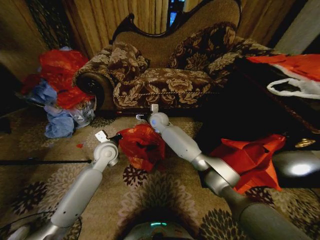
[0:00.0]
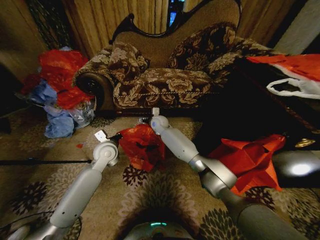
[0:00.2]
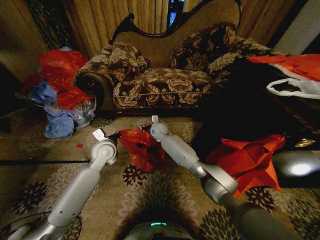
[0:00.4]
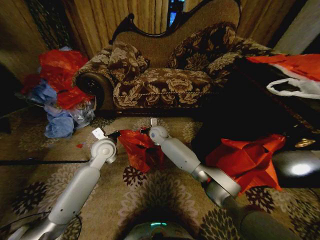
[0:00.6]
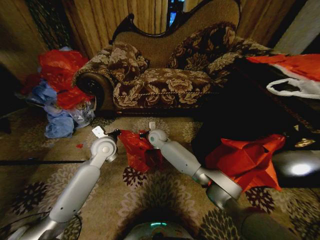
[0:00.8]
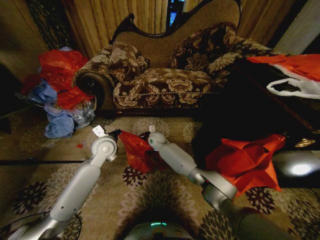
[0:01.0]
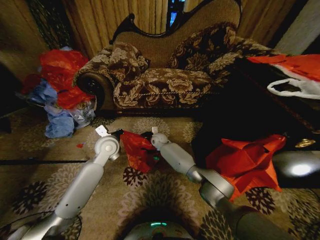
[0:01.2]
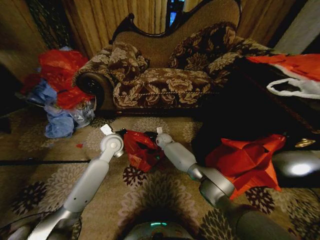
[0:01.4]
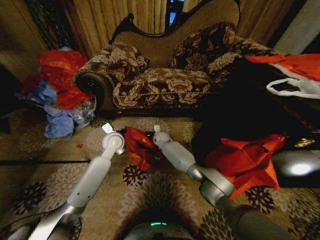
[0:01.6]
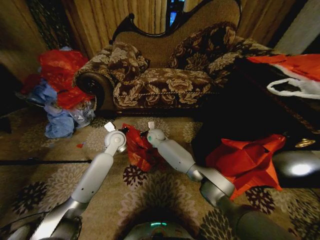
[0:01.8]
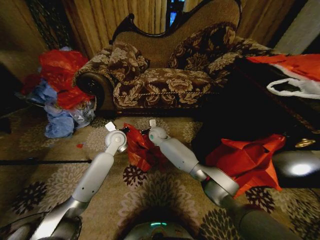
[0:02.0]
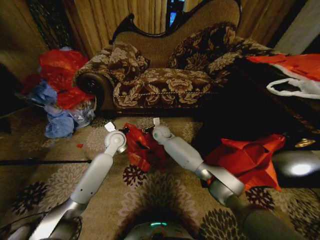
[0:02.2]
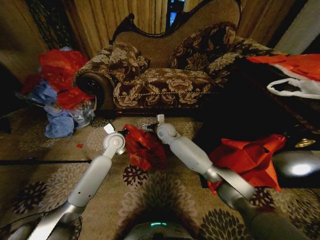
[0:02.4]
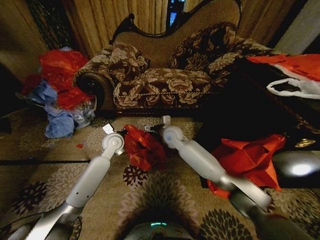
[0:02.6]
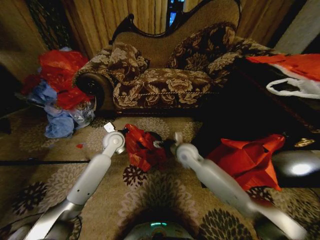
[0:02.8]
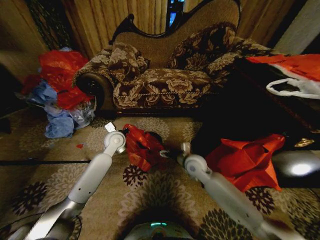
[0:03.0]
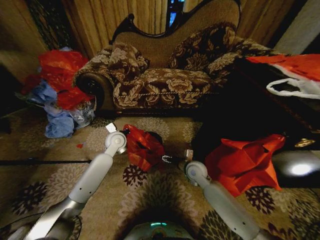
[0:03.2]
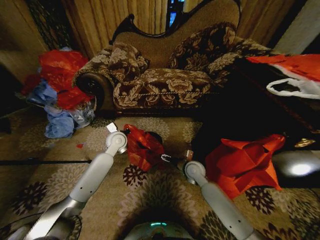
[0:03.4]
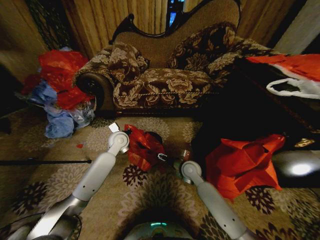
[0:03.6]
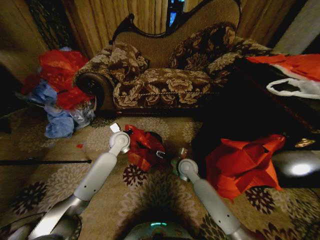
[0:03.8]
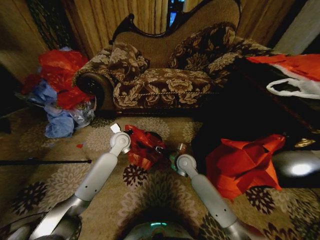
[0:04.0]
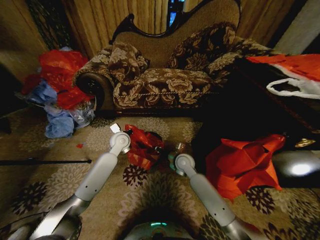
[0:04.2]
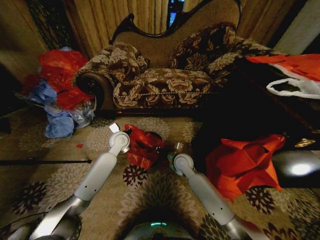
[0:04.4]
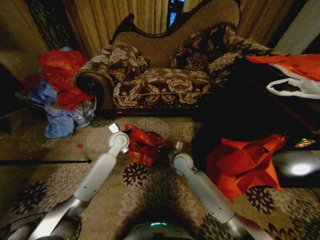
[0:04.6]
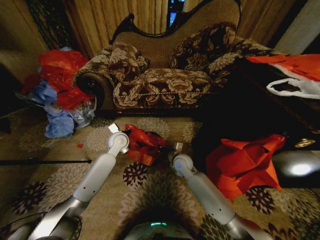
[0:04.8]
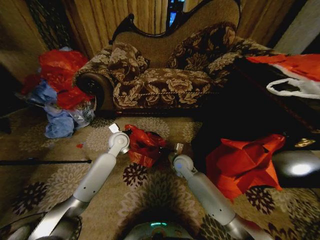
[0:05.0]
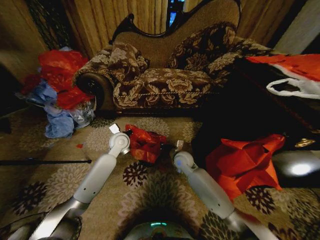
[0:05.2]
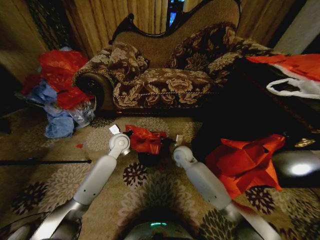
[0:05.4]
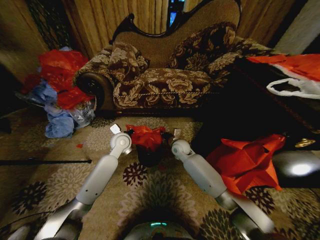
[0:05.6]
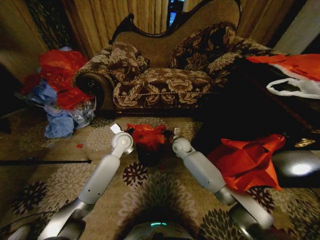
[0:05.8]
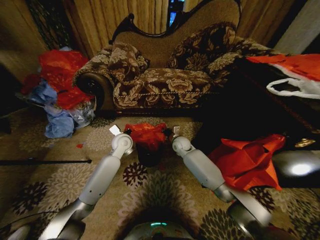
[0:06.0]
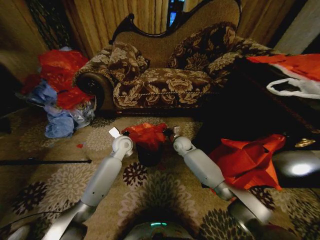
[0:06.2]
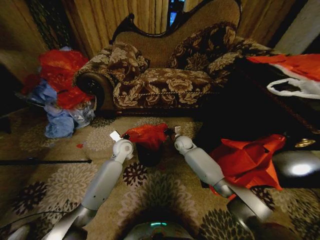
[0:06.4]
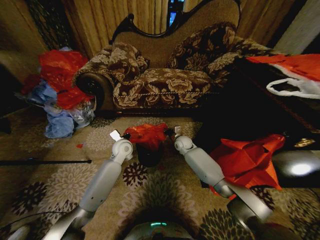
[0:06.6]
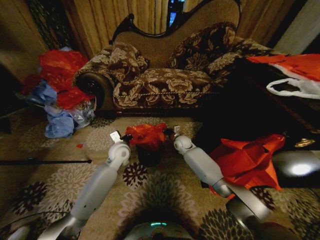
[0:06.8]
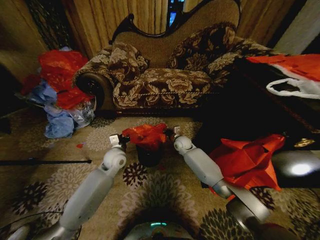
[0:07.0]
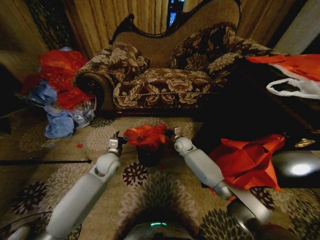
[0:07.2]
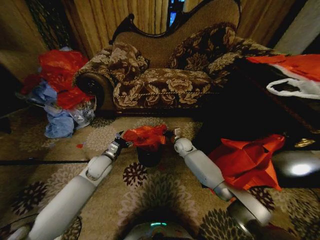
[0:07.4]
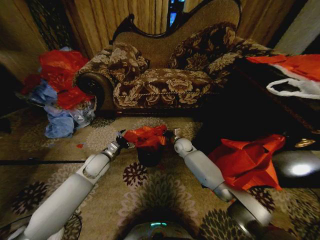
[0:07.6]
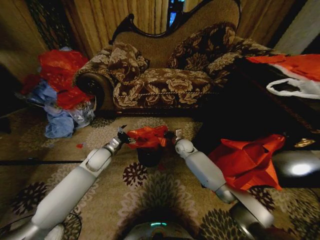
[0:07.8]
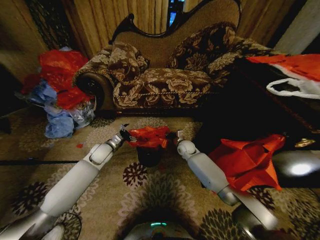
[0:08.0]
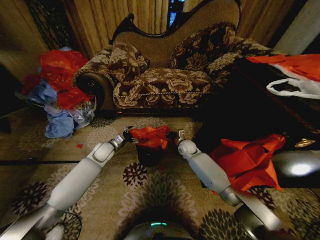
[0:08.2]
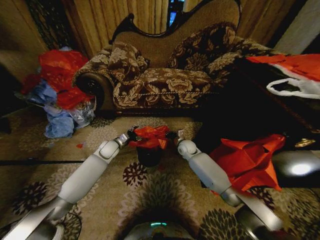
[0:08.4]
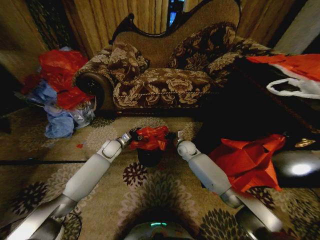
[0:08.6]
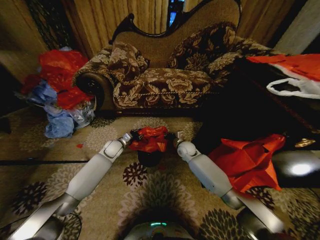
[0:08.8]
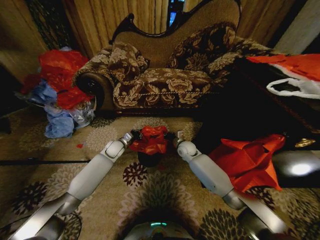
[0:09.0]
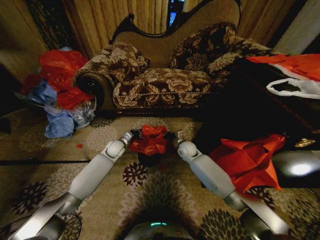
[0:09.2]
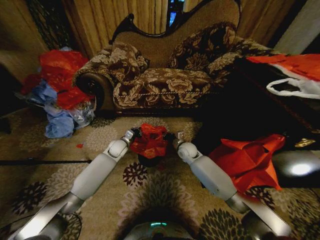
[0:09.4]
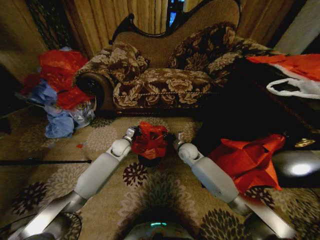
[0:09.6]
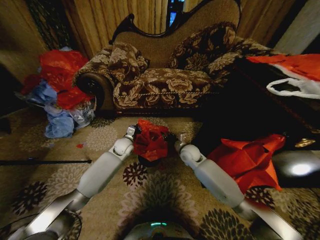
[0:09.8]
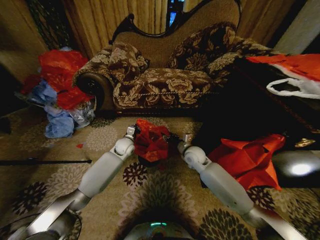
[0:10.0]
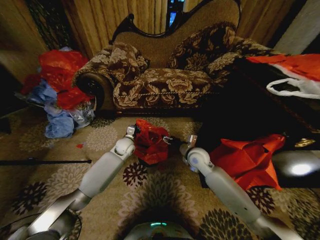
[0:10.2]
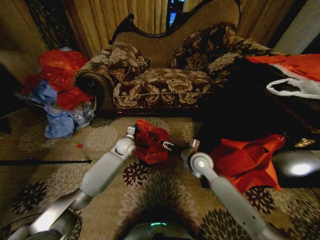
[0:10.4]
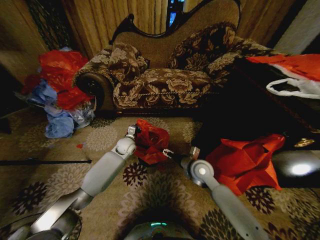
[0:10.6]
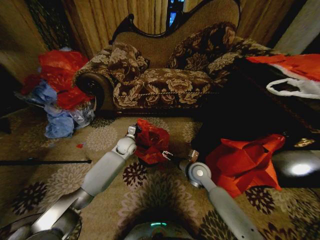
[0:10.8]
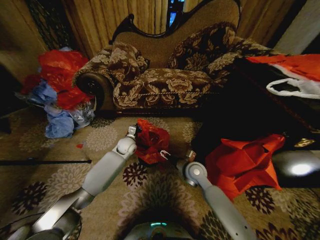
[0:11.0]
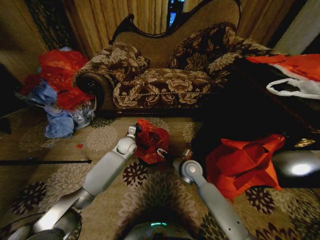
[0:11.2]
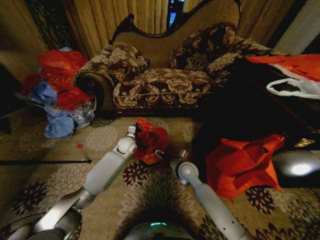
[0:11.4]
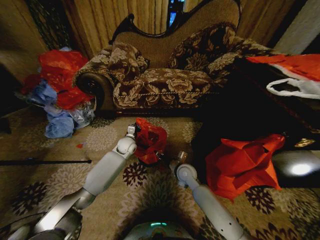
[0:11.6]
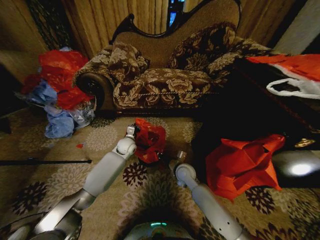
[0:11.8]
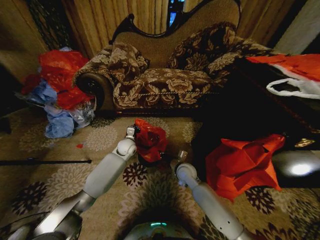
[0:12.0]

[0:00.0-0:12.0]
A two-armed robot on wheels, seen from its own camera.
Task of the whole recording: Place a garbage bag over the trash bin.
0:00.0 to 0:01.6: The right gripper heads downward, covering some 15 cm, and closes its fingers. The left gripper travels forward by some 5 cm.
0:01.6 to 0:03.0: The right gripper moves backward and to the right, about 25 cm, and opens its fingers.
0:03.0 to 0:04.4: The right gripper moves roughly 5 cm, and closes.
0:04.4 to 0:06.0: The right gripper heads forward, covering some 10 cm.
0:06.0 to 0:07.6: The left gripper is displaced to the left, backward and downward by roughly 15 cm, and opens its fingers.
0:07.6 to 0:09.0: The left gripper shifts roughly 10 cm forward, and closes up.
0:09.0 to 0:10.4: The left gripper shifts some 5 cm to the right; the right gripper goes roughly 15 cm backward and upward, and opens its fingers.
0:10.4 to 0:12.0: The right gripper moves downward, approximately 10 cm, and closes its fingers.

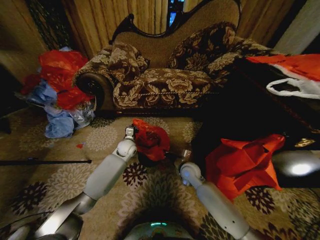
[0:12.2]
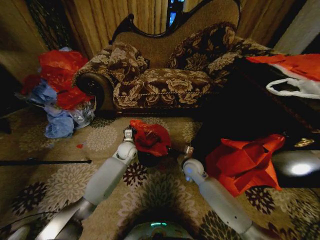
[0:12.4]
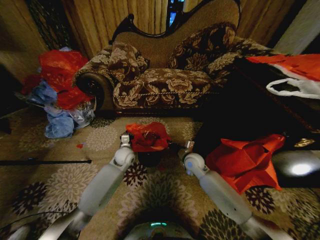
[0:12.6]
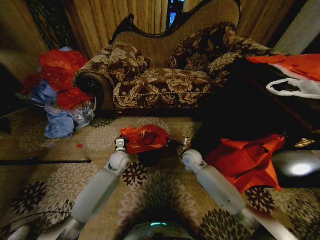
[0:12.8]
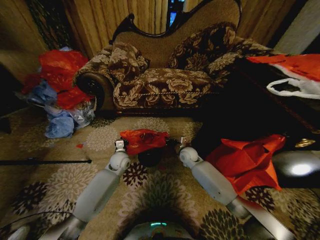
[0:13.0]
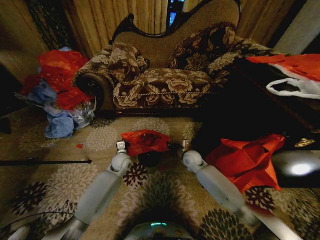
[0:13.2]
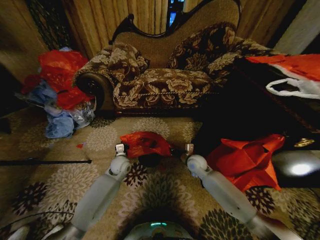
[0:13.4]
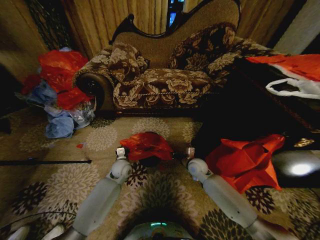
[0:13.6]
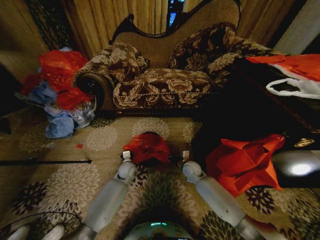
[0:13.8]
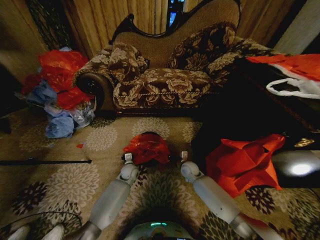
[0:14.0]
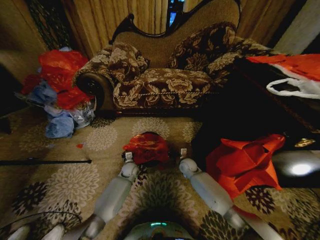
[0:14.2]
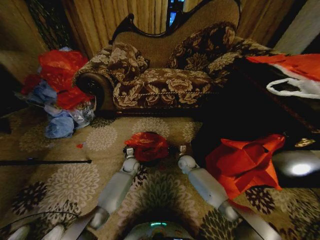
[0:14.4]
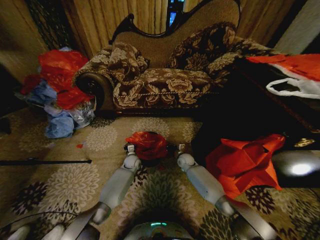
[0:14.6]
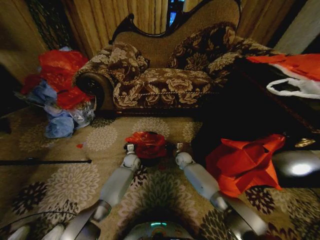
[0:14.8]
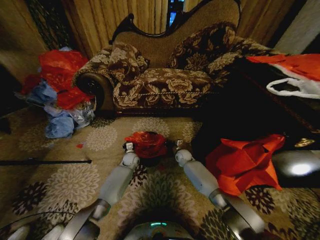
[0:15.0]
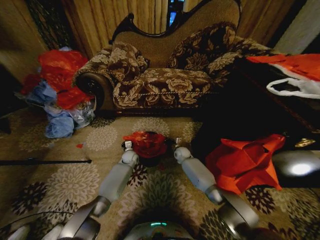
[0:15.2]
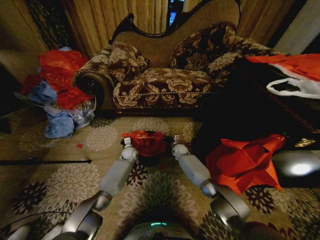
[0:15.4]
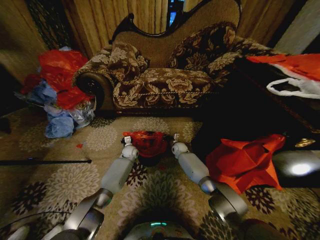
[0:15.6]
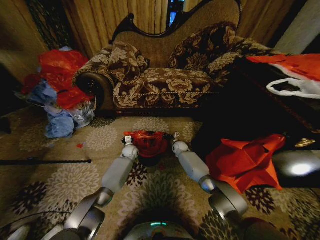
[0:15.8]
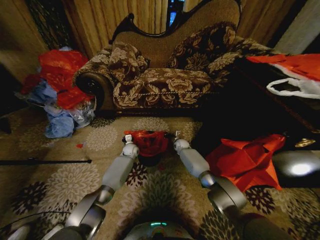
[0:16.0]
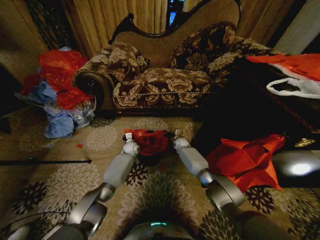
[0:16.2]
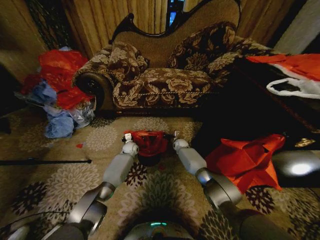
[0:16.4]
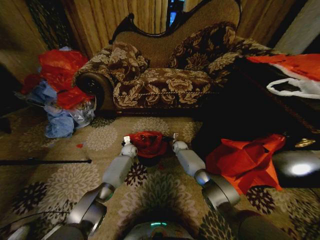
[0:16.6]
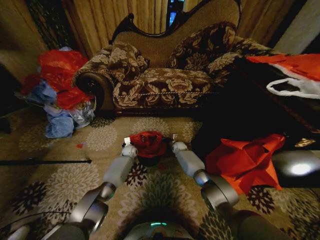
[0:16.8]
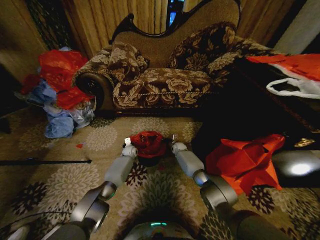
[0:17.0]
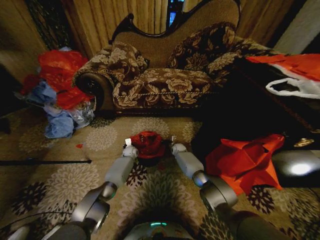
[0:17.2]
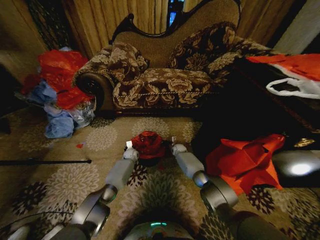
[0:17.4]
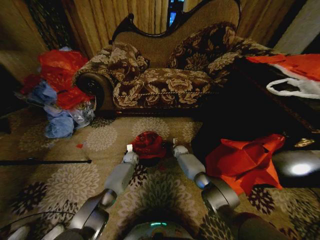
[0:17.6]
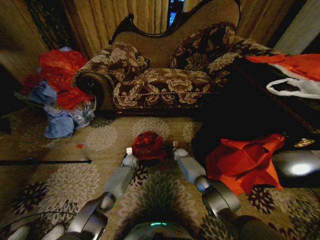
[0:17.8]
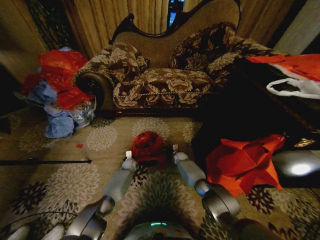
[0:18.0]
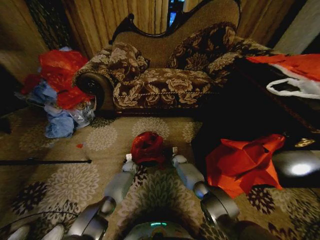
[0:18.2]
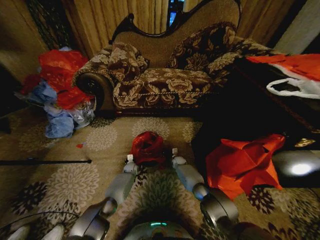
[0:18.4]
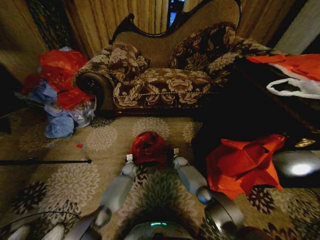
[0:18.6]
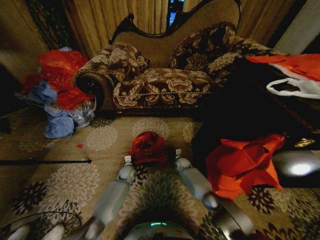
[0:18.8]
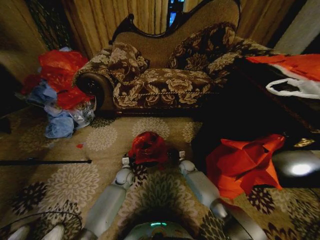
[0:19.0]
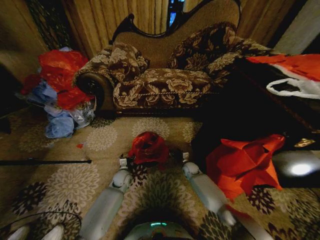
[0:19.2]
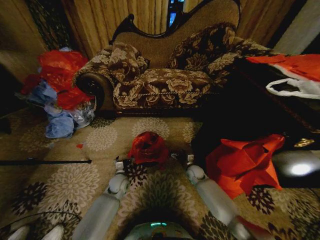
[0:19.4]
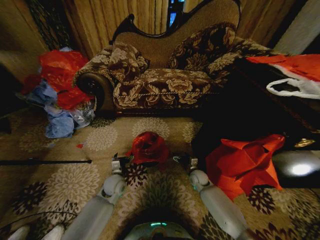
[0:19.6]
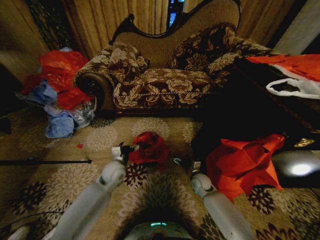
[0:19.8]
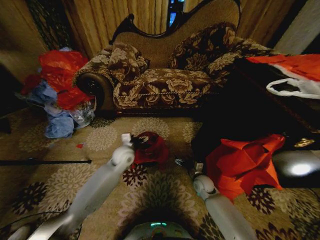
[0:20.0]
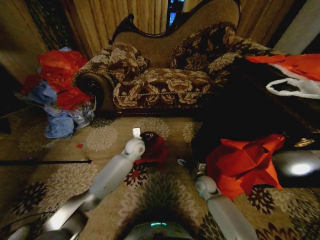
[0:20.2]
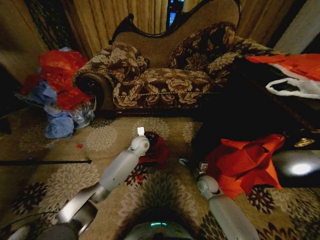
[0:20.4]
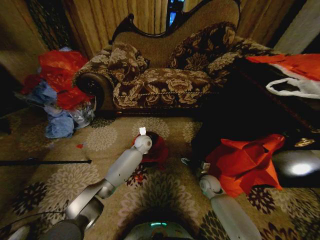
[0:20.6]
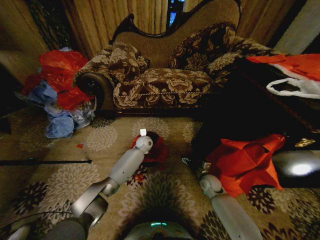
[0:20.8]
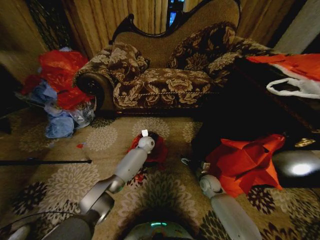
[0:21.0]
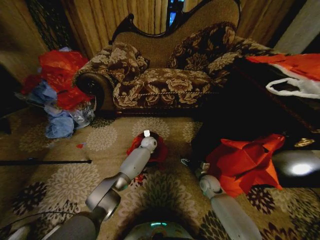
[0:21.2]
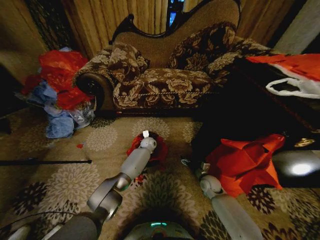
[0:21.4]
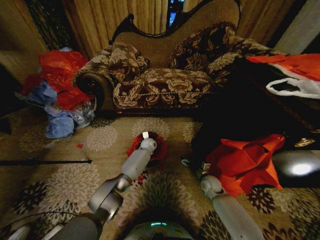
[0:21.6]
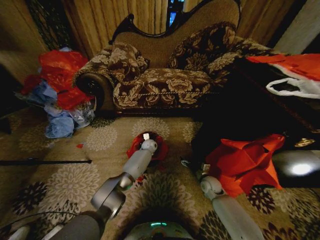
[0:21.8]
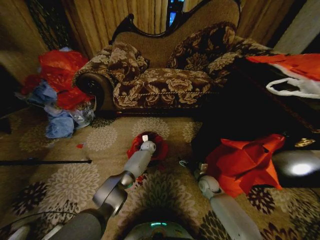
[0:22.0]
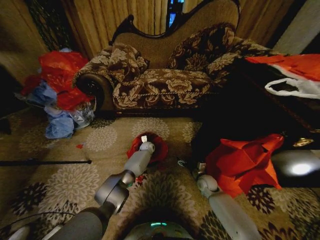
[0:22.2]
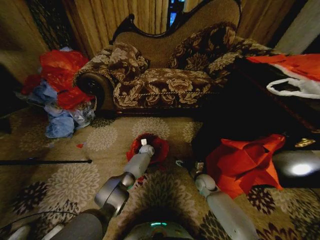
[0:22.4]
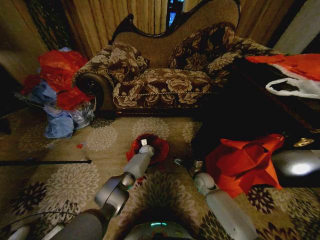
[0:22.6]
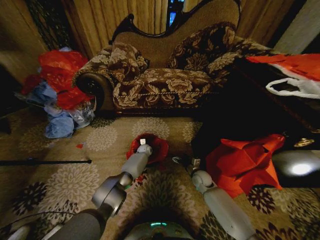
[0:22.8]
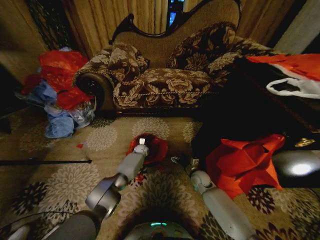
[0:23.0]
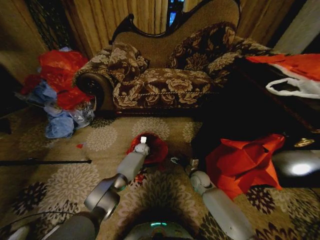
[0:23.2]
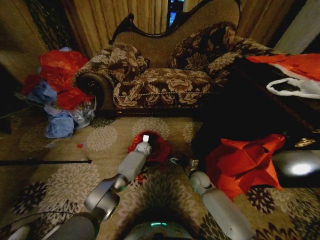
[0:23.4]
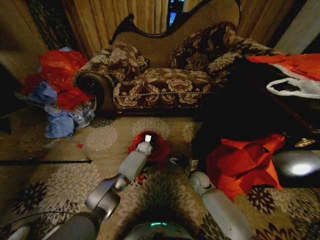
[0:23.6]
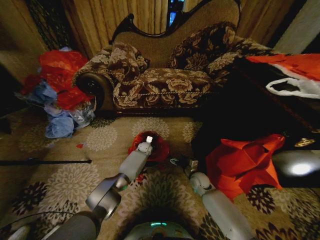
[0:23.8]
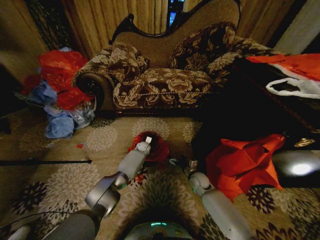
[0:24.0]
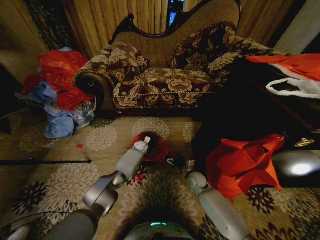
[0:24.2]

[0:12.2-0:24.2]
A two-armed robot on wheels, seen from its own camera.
Task of the whole recording: Place a garbage bag over the trash bin.
0:12.2 to 0:13.8: The left gripper is displaced downward and backward by roughly 10 cm.
0:13.8 to 0:15.2: The grippers both shift forward by some 10 cm.
0:15.2 to 0:16.6: The two grippers go approximately 5 cm forward.
0:16.6 to 0:18.2: The grippers both shift downward and backward by some 10 cm.
0:18.2 to 0:19.8: The right gripper moves backward and to the right, roughly 20 cm, and opens. The left gripper shifts roughly 30 cm upward and backward, and opens.
0:19.8 to 0:21.2: The left gripper shifts approximately 25 cm forward and to the right, and closes up.
0:21.2 to 0:22.6: The left gripper shifts some 10 cm downward.
